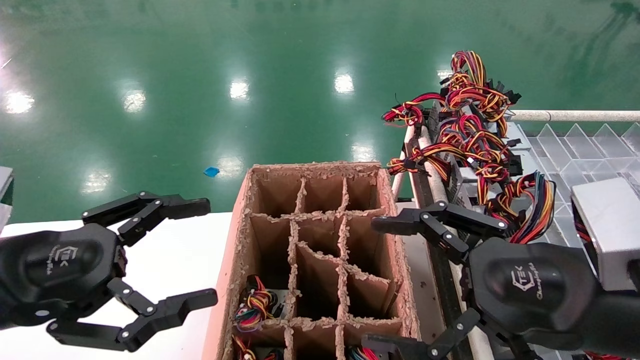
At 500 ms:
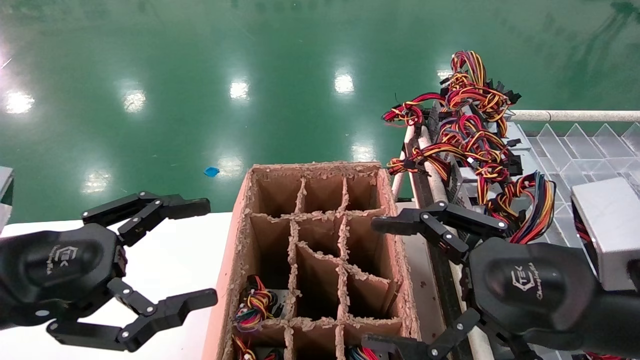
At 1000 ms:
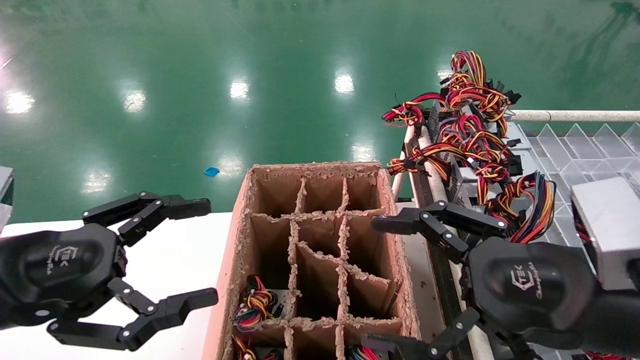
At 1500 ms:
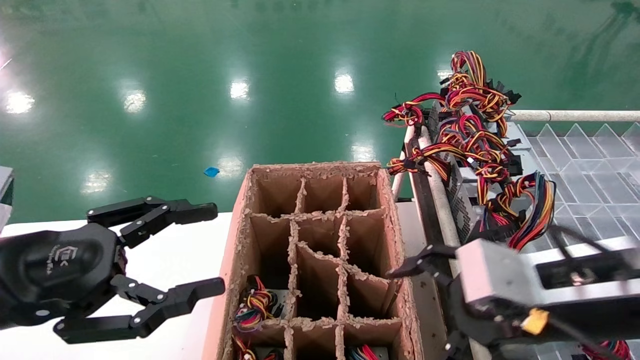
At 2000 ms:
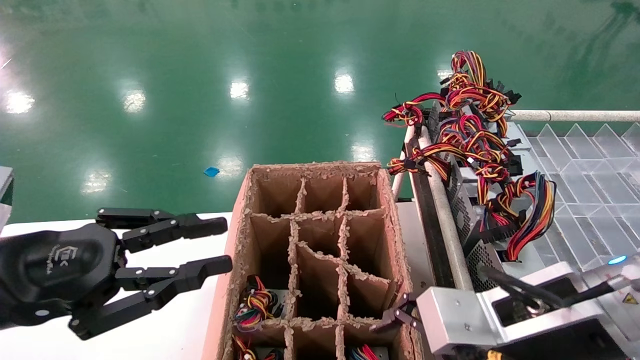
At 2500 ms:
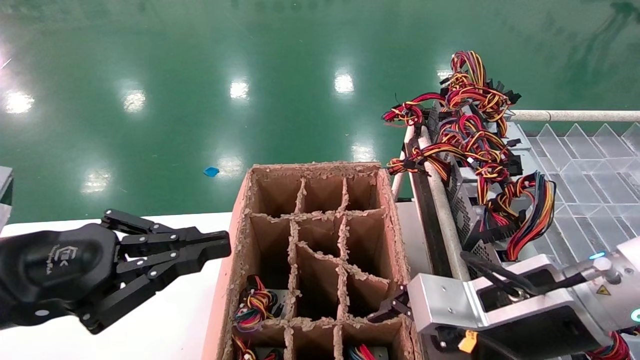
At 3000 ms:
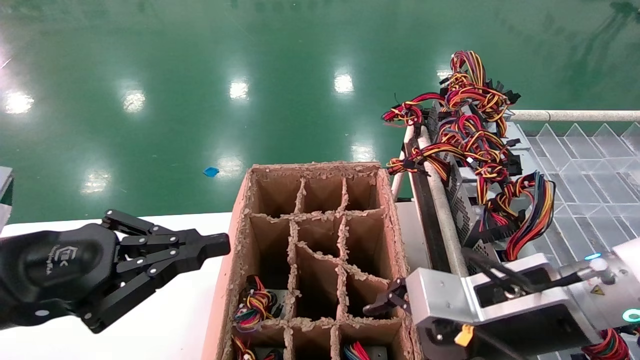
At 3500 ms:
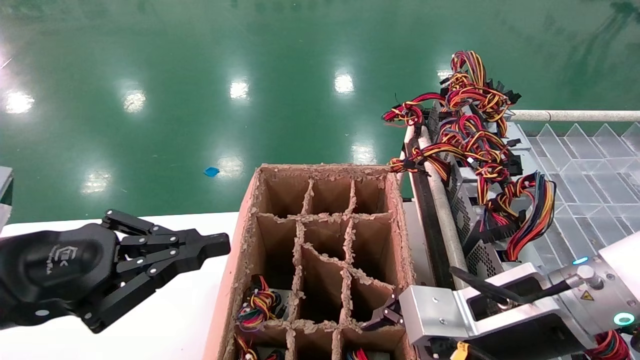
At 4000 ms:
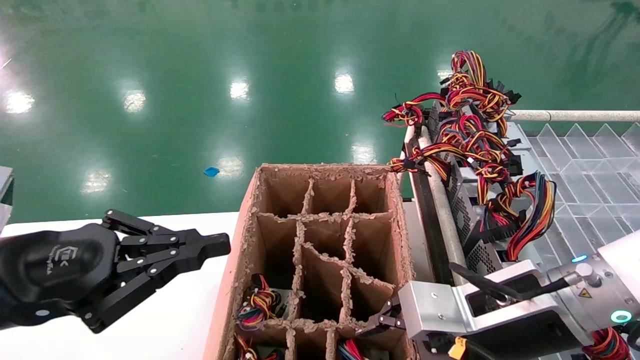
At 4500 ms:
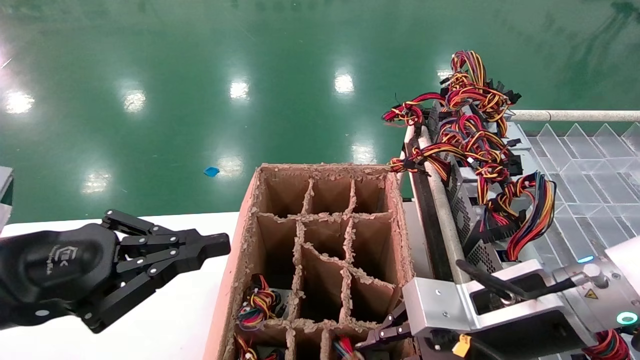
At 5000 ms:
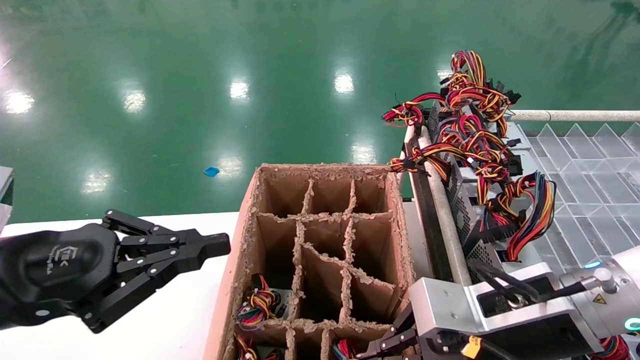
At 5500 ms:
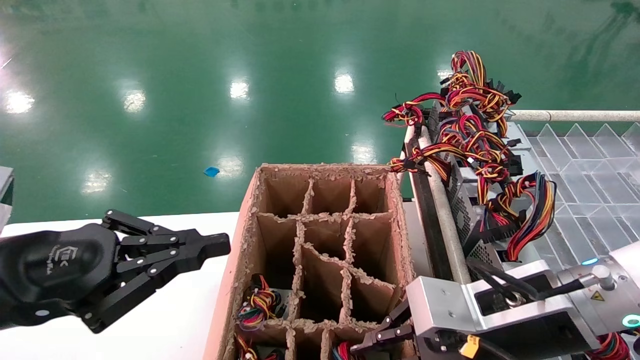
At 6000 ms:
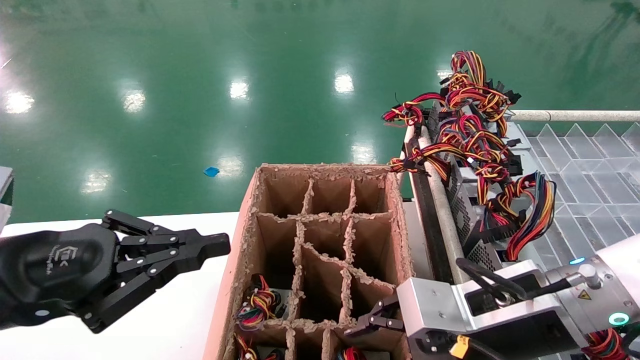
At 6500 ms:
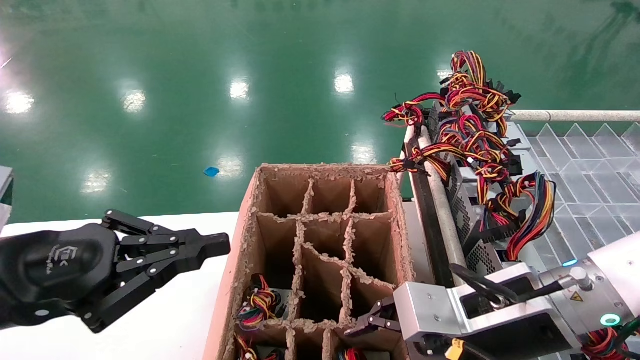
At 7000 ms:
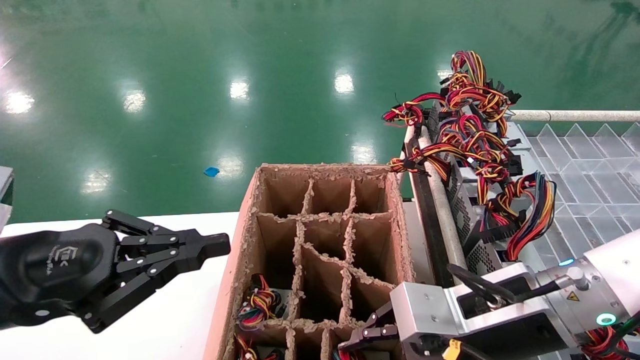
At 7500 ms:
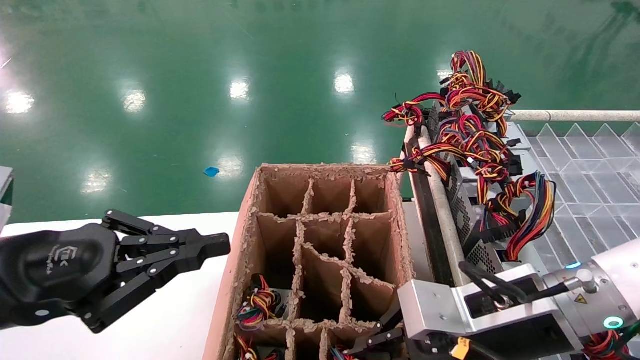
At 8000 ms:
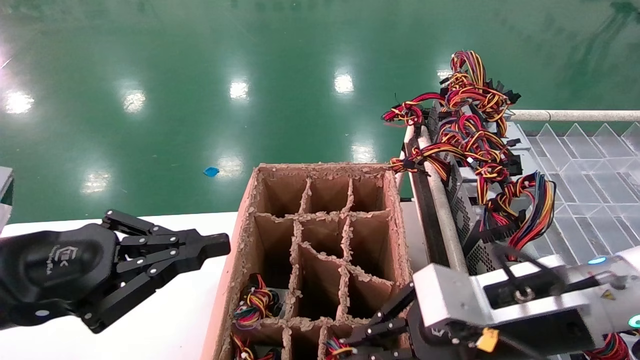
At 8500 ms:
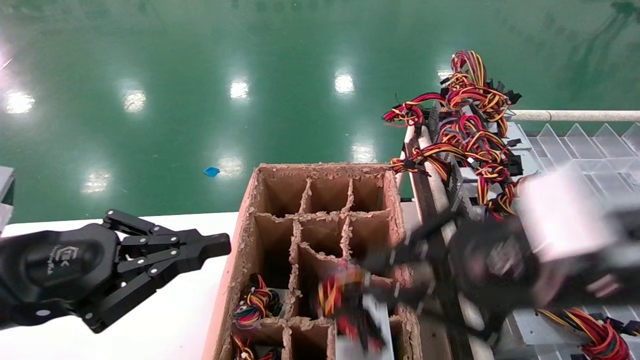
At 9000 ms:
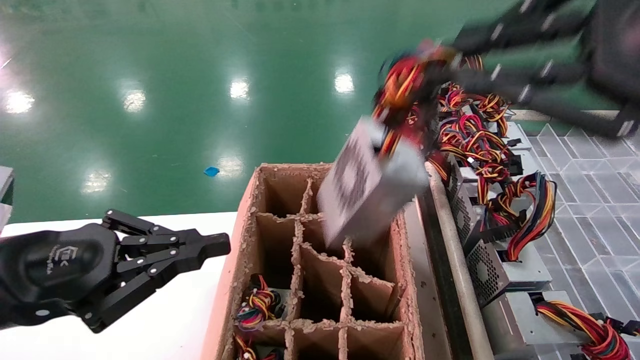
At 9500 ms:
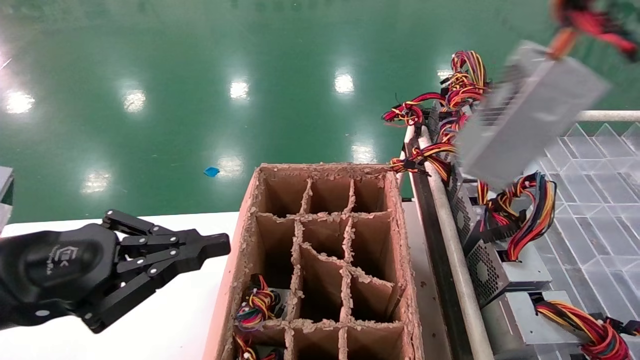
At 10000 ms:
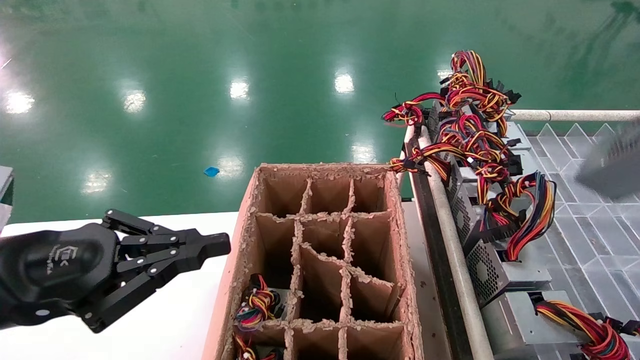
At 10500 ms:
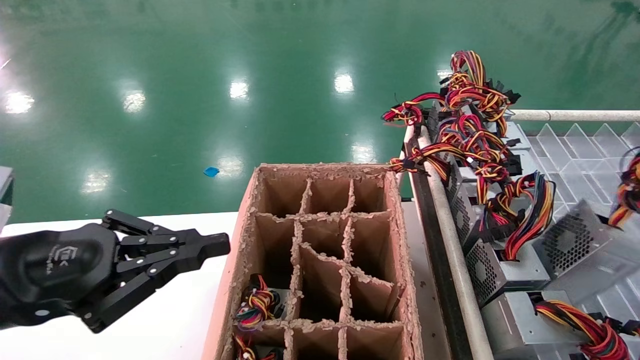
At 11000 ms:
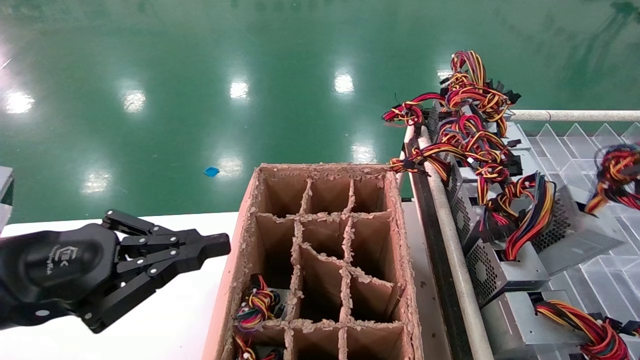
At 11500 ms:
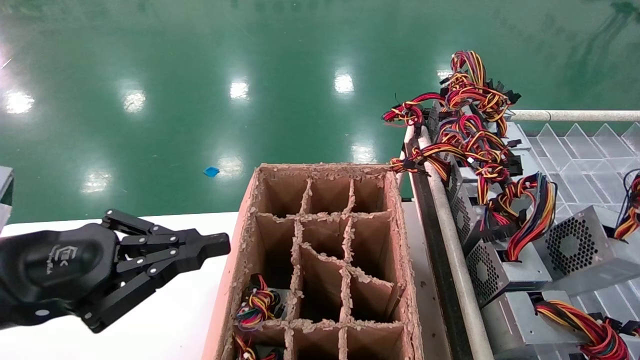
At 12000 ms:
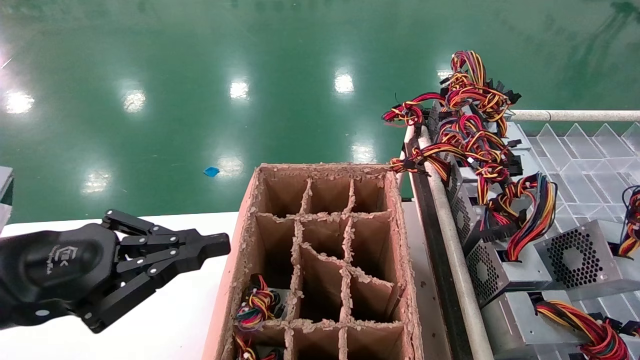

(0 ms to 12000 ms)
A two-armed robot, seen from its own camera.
Step, 1500 ms - 7500 ms: Grab the main unit power supply from the containment box.
0 ms - 2000 ms: The right gripper shifts by some 5 cm; the left gripper closes.
2000 ms - 4000 ms: The left gripper closes its fingers.
4000 ms - 6000 ms: The right gripper closes and opens again.
6000 ms - 8000 ms: The right gripper closes.
8000 ms - 10000 ms: The right gripper heads upward, to the right and backward, covering roughly 35 cm.
10000 ms - 12000 ms: The right gripper is displaced downward by roughly 10 cm.

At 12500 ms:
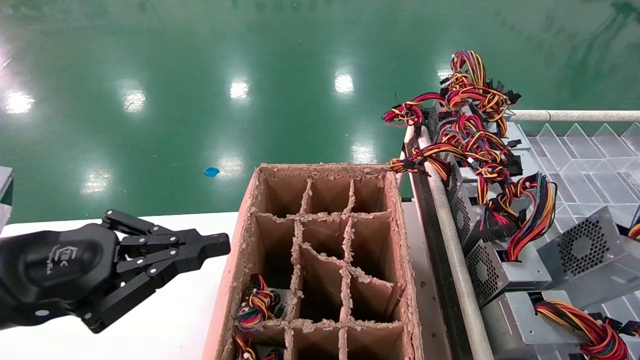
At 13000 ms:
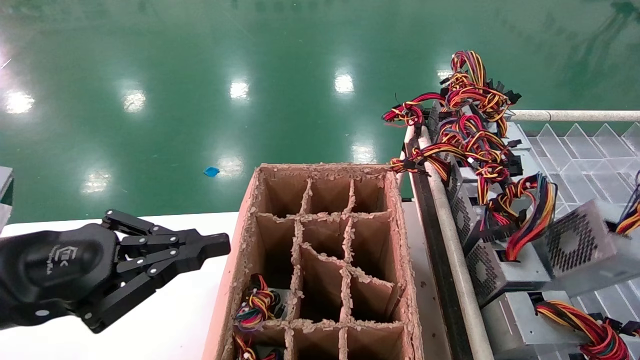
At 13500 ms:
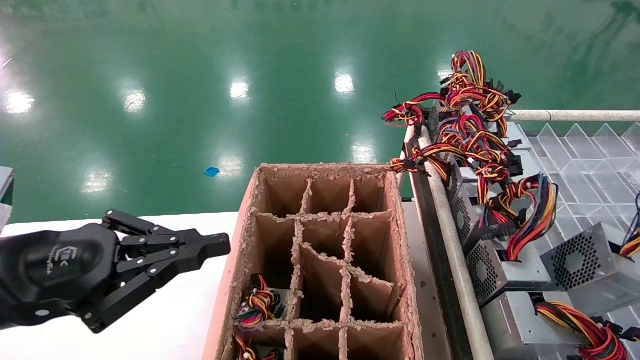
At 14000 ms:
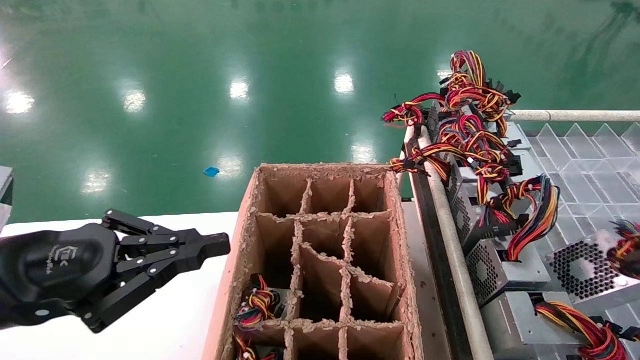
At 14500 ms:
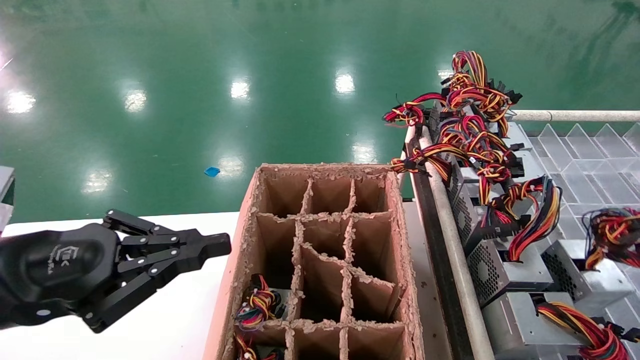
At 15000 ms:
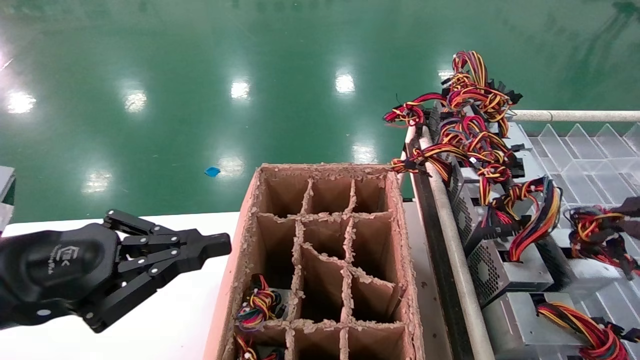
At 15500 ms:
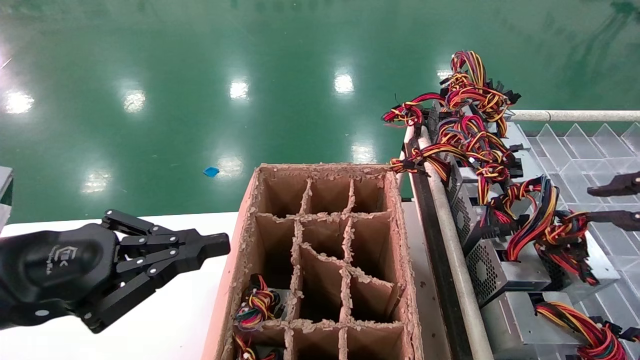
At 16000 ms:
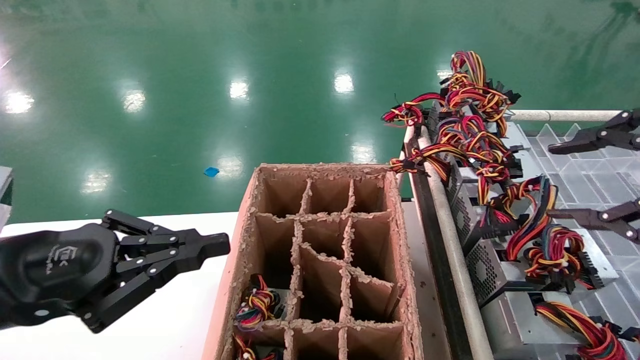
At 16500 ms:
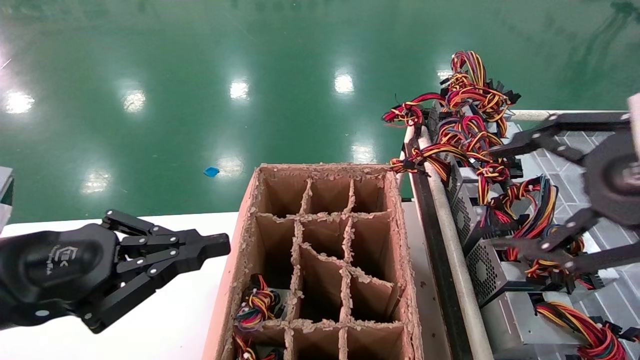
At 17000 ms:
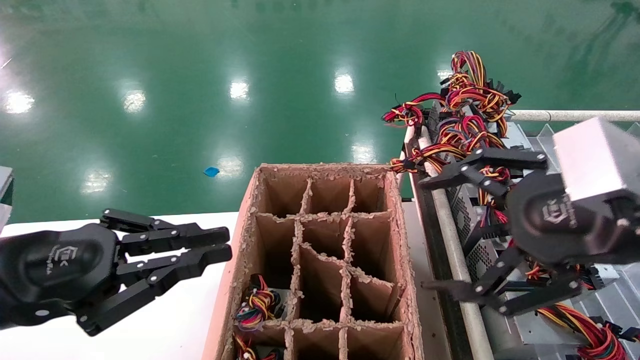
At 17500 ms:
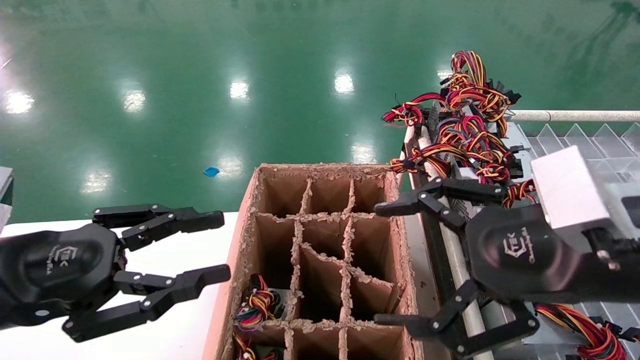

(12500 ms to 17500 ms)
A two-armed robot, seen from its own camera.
Step, 12500 ms - 15500 ms: Place the main unit power supply in the designated area.
12500 ms - 15000 ms: The right gripper heads forward, covering approximately 5 cm.
15000 ms - 17500 ms: The left gripper opens up; the right gripper goes roughly 15 cm to the left and downward, and opens its fingers.
